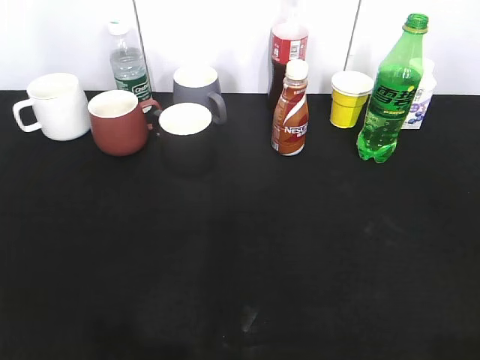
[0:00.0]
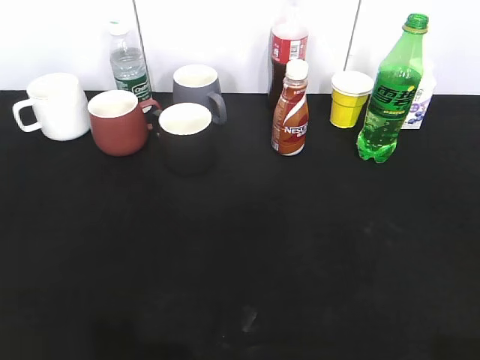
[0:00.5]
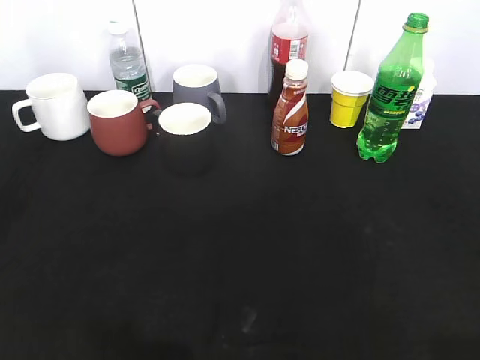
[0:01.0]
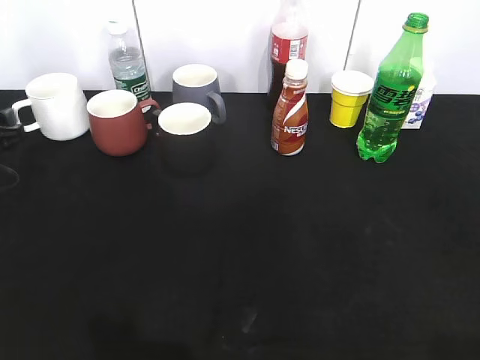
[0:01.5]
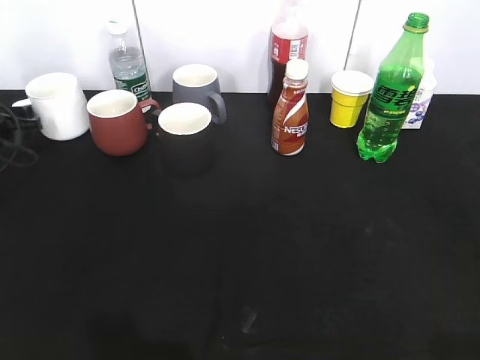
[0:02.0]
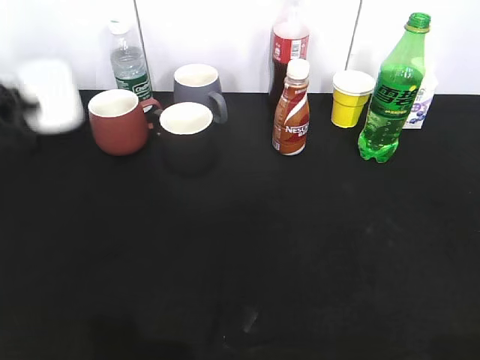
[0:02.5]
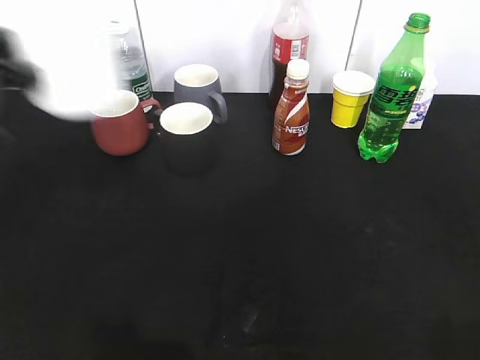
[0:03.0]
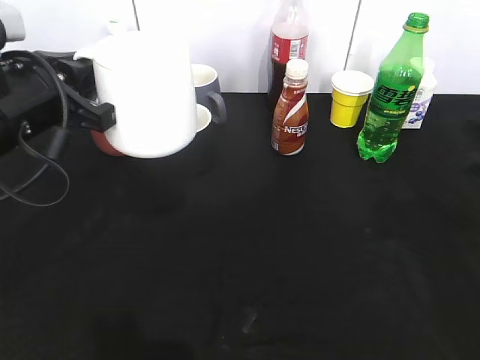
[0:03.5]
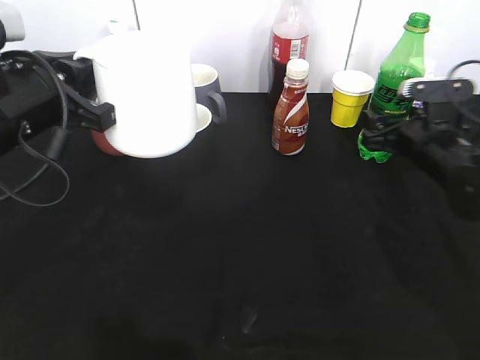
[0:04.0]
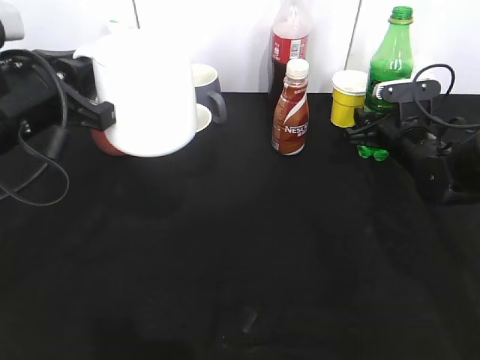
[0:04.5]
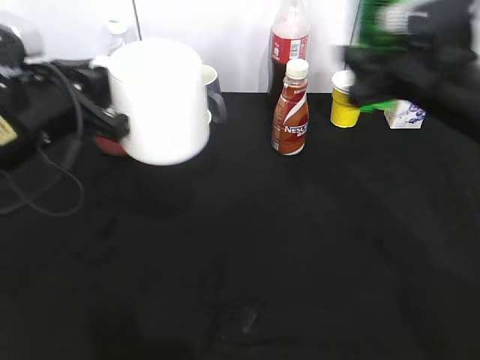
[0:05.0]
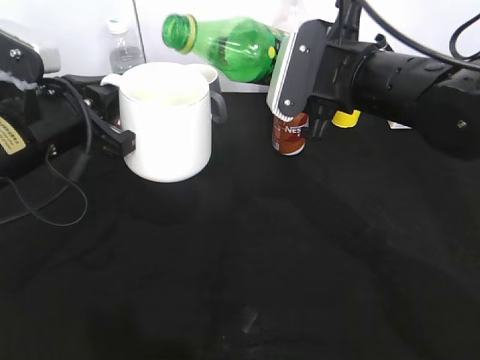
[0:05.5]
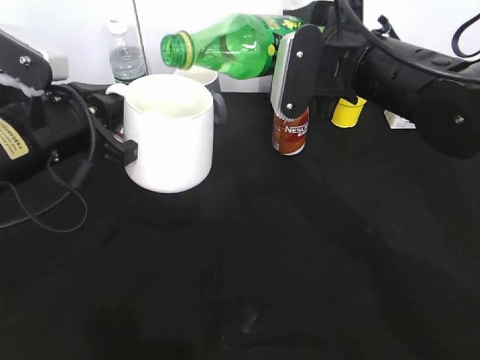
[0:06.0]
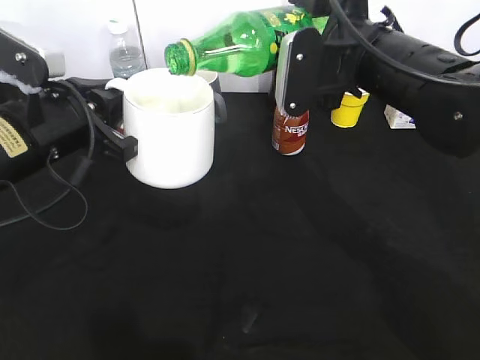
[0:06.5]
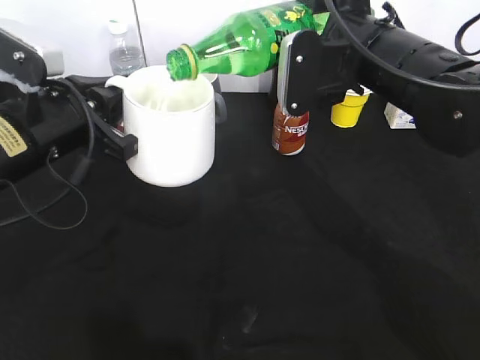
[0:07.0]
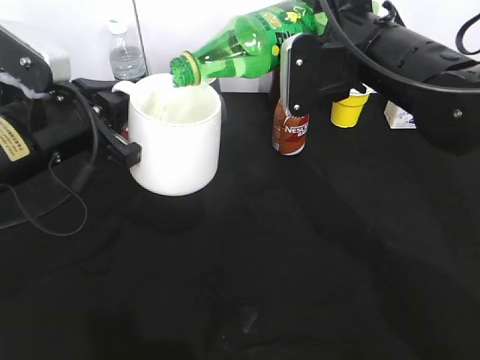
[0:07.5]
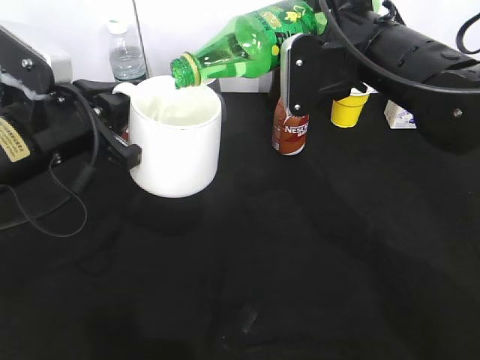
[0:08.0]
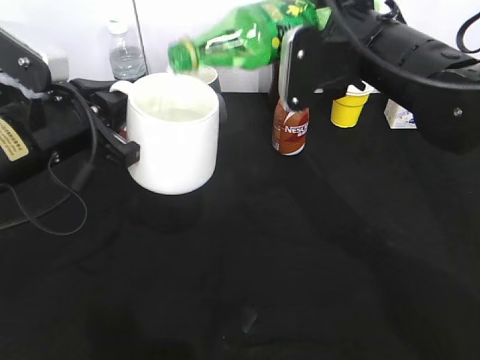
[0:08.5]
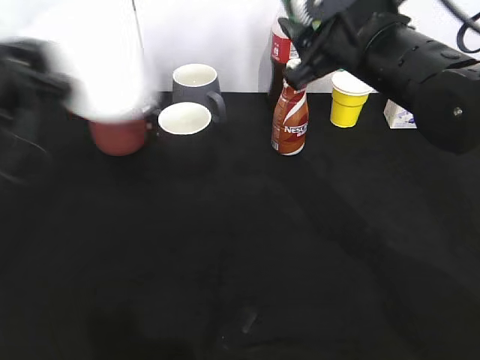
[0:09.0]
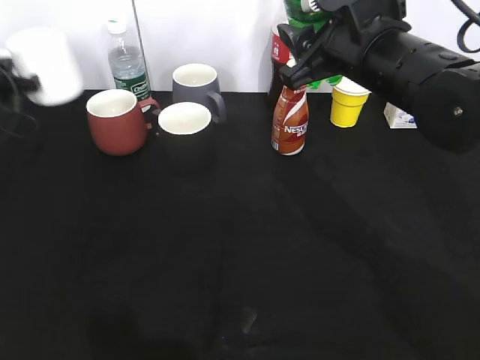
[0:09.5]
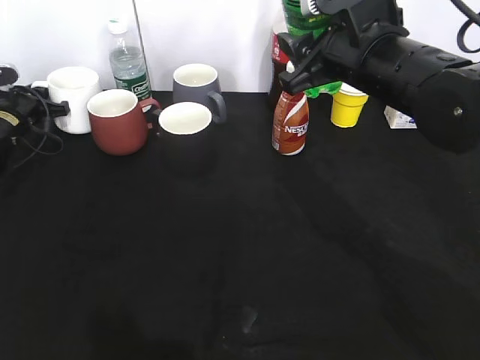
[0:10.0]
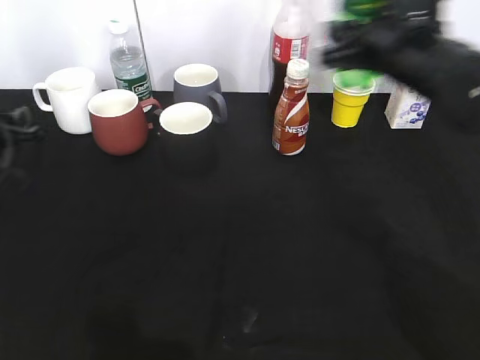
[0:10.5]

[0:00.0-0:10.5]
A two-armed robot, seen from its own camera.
Step, 0:02.5 to 0:03.0: Lift the white cup with left gripper.
Step, 0:03.5 to 0:04.5: Grasp the bottle with sprite with right gripper.
Step, 0:05.0 to 0:08.5: Pour the sprite from bottle to cup with right gripper.
Step, 0:09.0 to 0:10.0: Place the white cup on the table with left gripper.
0:00.0 to 0:02.0: The left gripper travels forward and downward by roughly 50 cm.
0:02.0 to 0:04.0: The right gripper travels forward and downward by about 40 cm, and opens up; the left gripper shifts about 30 cm to the right, backward and upward, and closes up.
0:04.0 to 0:06.5: The right gripper goes some 20 cm upward and to the left, and closes.
0:06.5 to 0:08.5: The grippers make only small movements.
0:08.5 to 0:10.5: The left gripper shifts about 20 cm to the left, downward and forward, and opens its fingers. Meanwhile the right gripper changes place by about 5 cm.

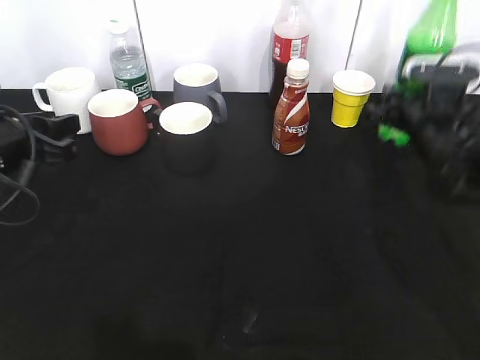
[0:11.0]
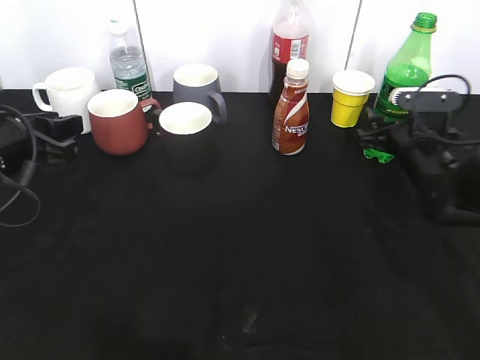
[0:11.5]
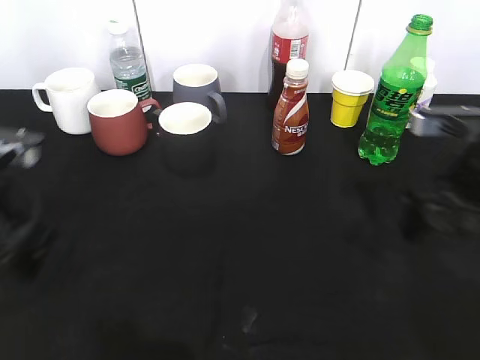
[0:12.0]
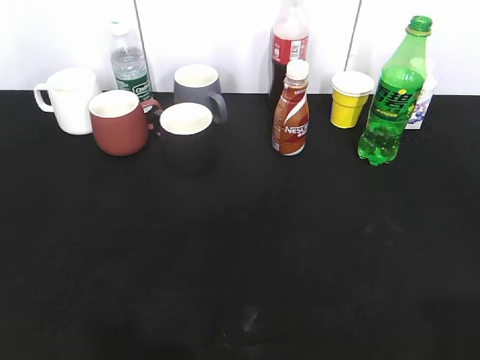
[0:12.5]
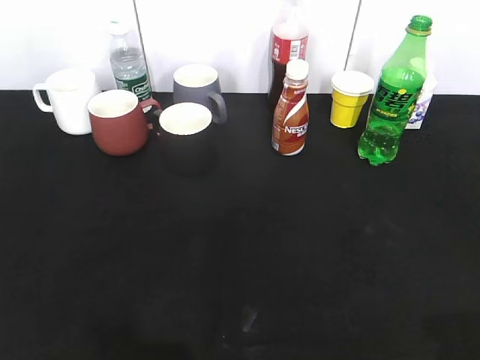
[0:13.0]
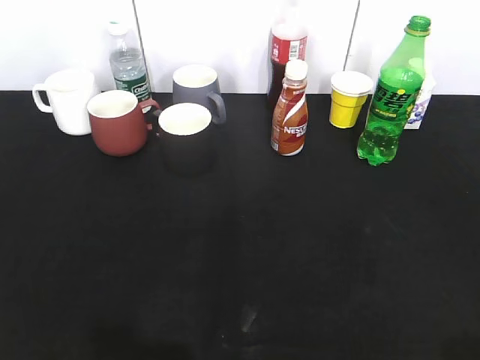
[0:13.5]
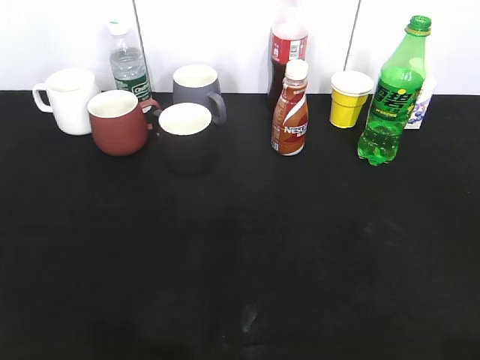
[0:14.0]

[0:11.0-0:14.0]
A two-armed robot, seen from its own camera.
0:11.0 to 0:12.5: The grippers both shift backward and upward by approximately 35 cm. The right gripper opens.
0:12.5 to 0:14.0: The grippers make only small movements.

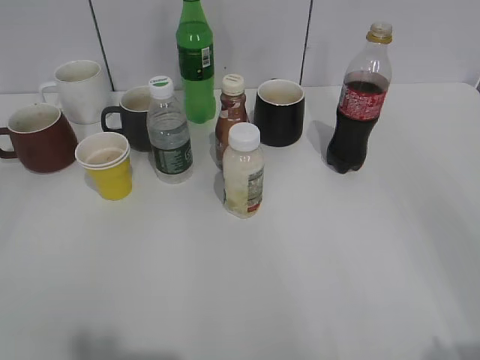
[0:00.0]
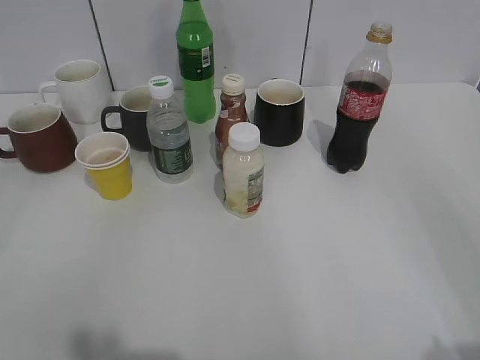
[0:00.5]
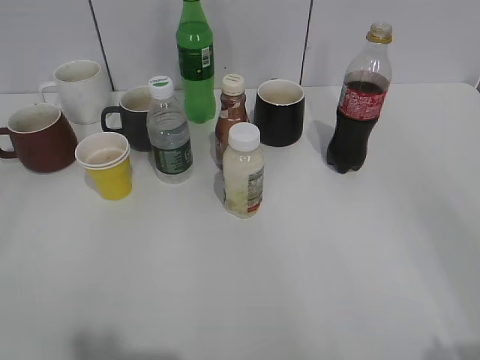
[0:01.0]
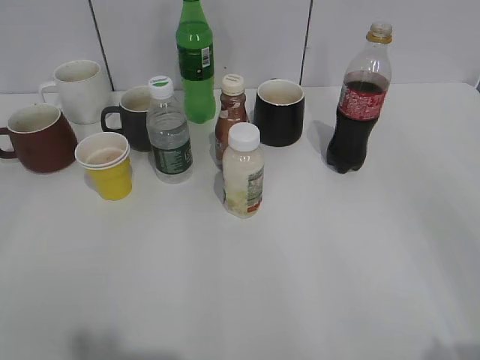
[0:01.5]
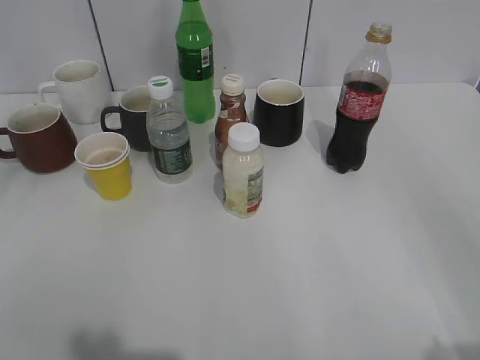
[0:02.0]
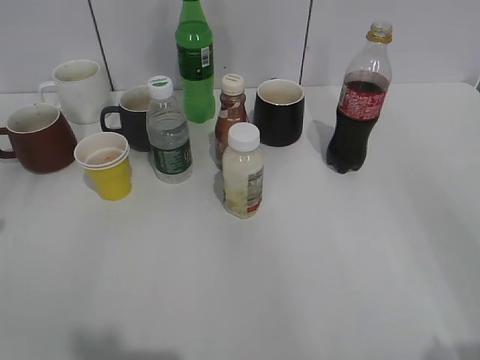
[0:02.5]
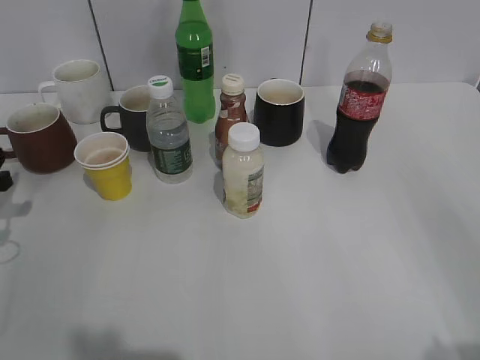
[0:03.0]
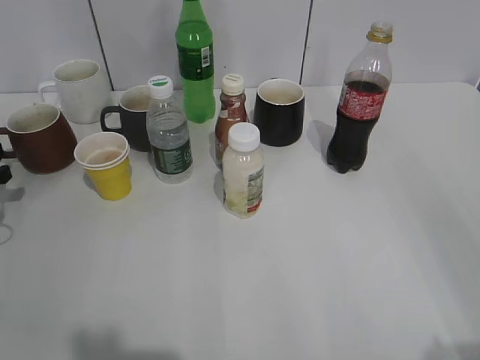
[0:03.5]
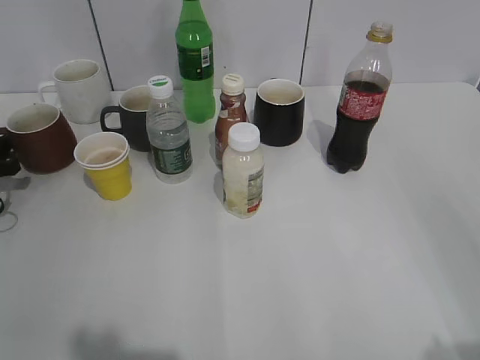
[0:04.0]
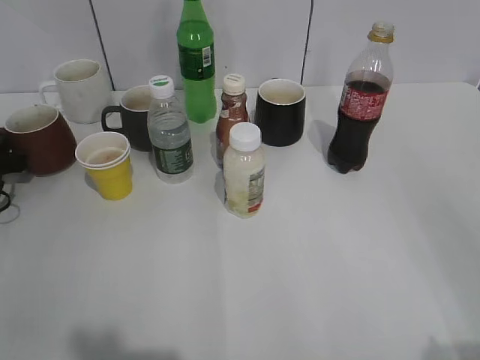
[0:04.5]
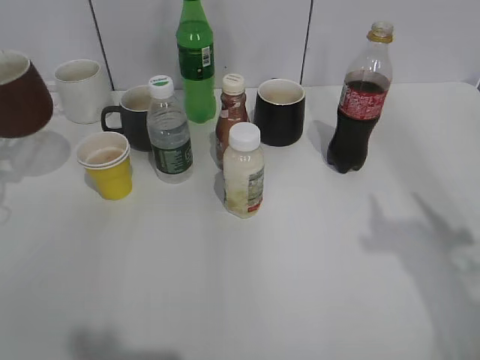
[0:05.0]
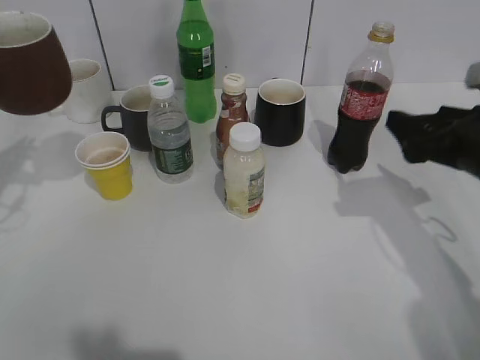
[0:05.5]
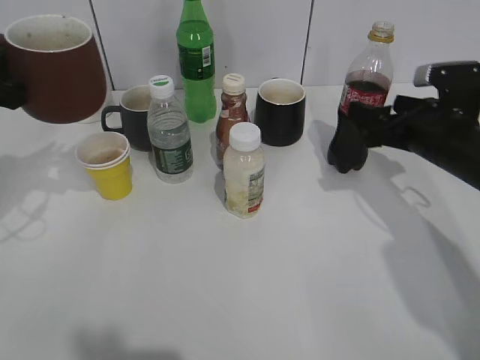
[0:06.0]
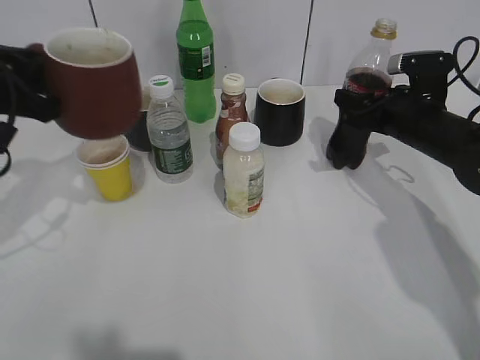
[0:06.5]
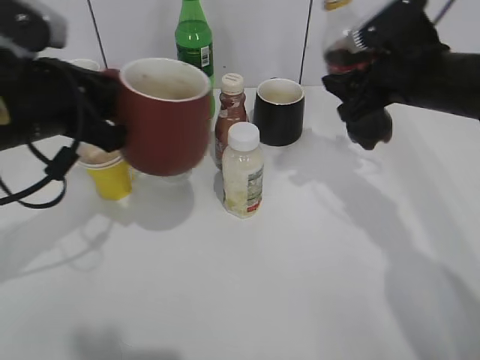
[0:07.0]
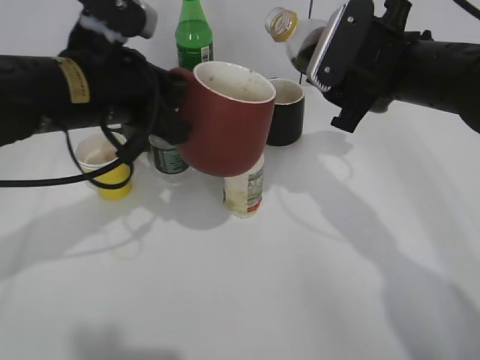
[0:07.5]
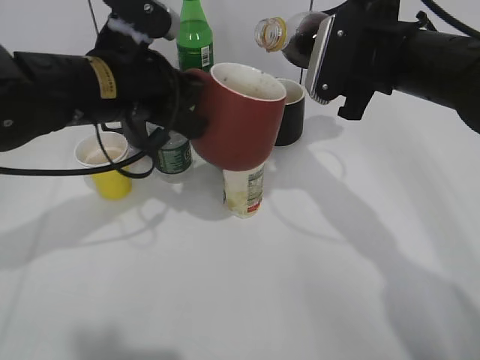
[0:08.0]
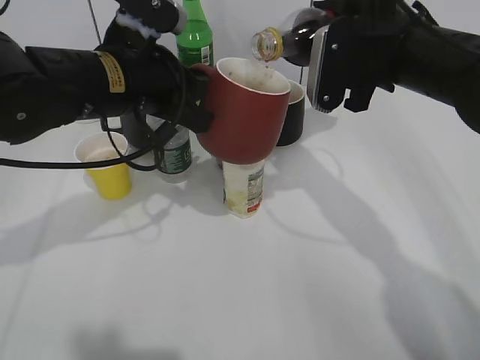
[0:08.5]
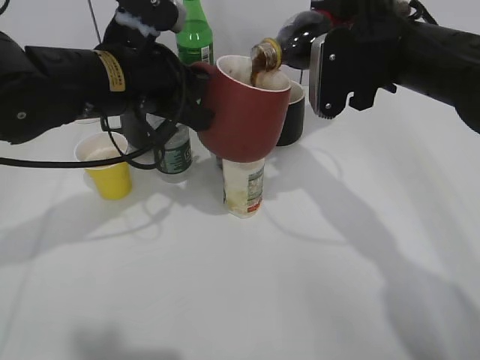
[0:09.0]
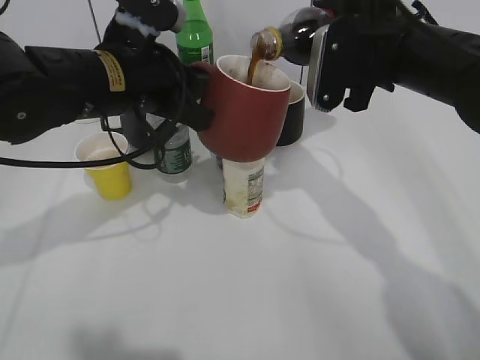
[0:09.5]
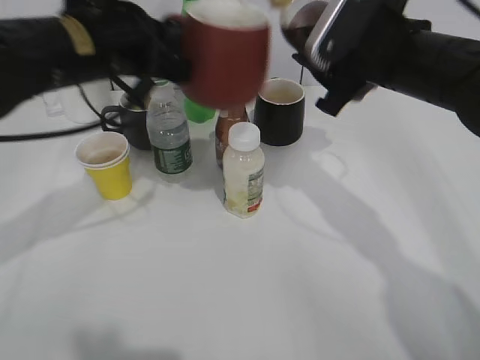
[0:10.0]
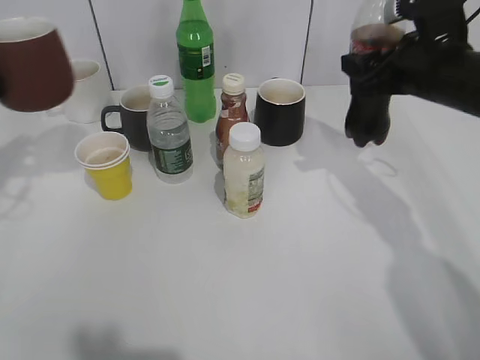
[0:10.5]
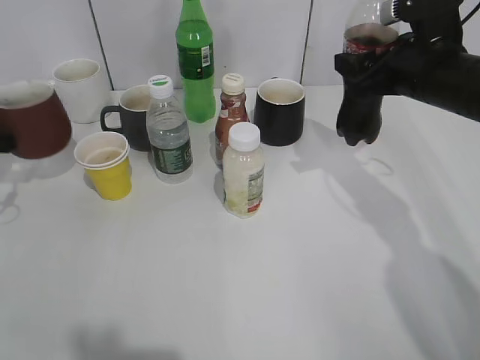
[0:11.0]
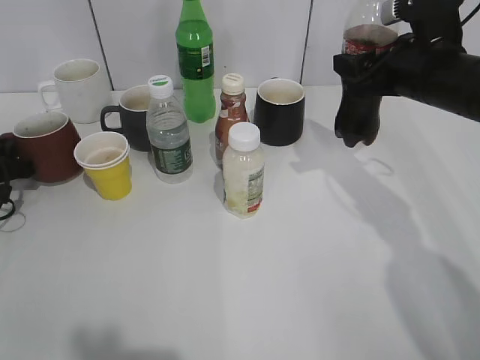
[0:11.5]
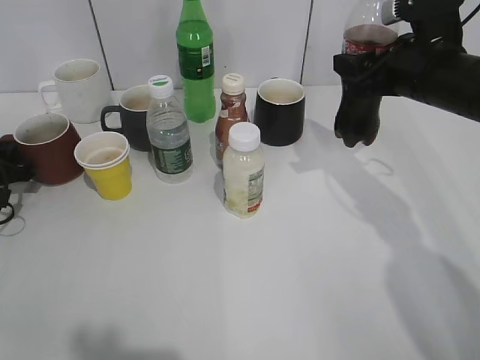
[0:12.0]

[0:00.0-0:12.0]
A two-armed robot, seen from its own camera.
Step, 0:01.5 to 0:04.0: Grasp the red cup with left gripper.
Step, 0:05.0 to 0:06.5: Grasp the bottle with cola with right gripper.
Step, 0:07.0 to 0:10.0: Pour the cola from bottle to cup with right gripper.
0:02.0 to 0:04.0: The left gripper travels forward and downward by approximately 40 cm.
0:04.0 to 0:06.0: The right gripper goes some 35 cm forward and downward, and opens up. Meanwhile the left gripper moves upward and to the right, approximately 20 cm, and closes up.
0:06.0 to 0:08.0: The left gripper moves to the right, approximately 15 cm. Meanwhile the right gripper moves upward and to the left, roughly 15 cm, and closes its fingers.
0:10.0 to 0:12.0: The left gripper is displaced to the left and downward by roughly 30 cm. Meanwhile the right gripper heads to the right, covering about 5 cm.
